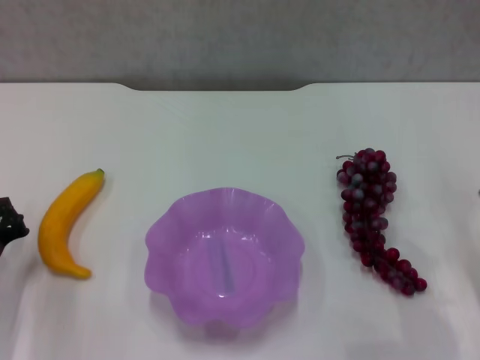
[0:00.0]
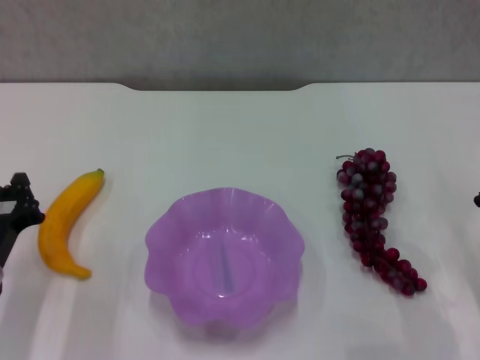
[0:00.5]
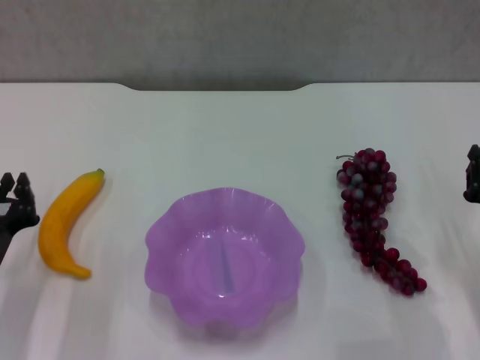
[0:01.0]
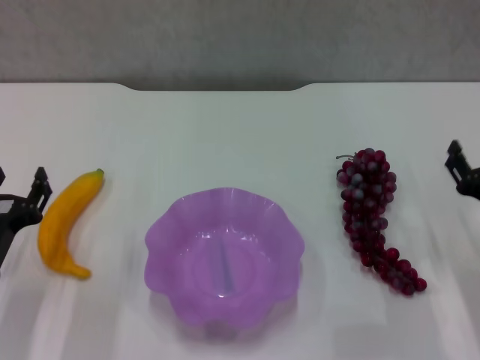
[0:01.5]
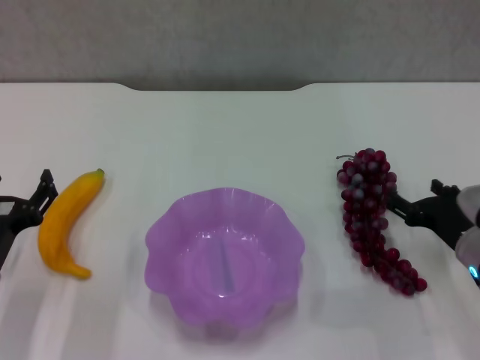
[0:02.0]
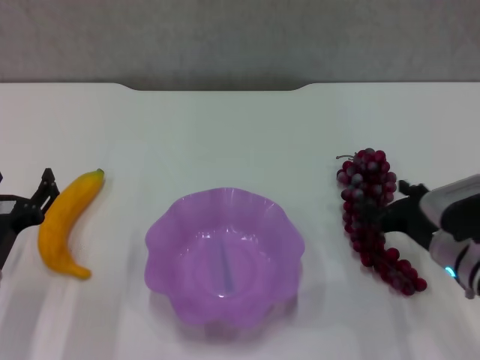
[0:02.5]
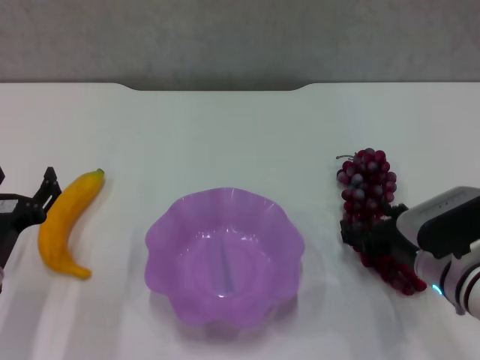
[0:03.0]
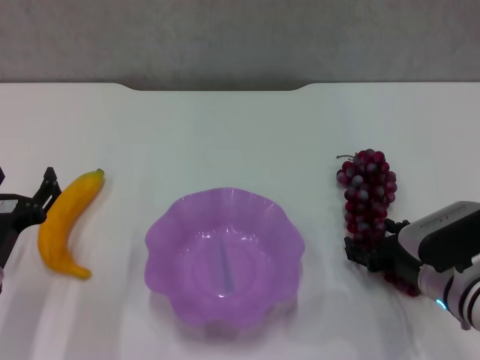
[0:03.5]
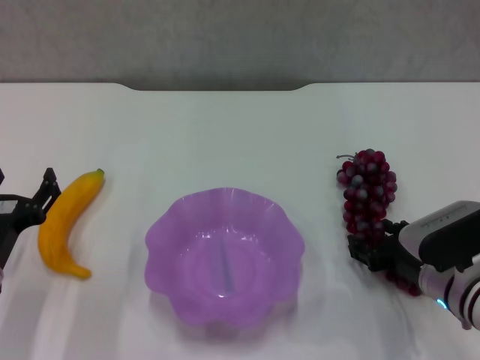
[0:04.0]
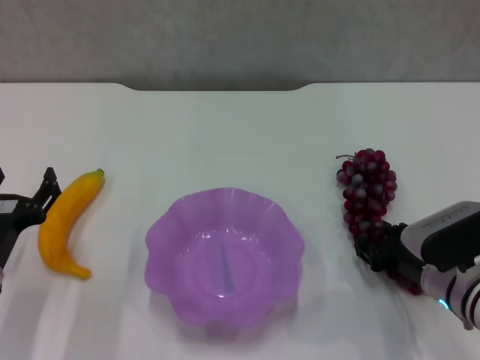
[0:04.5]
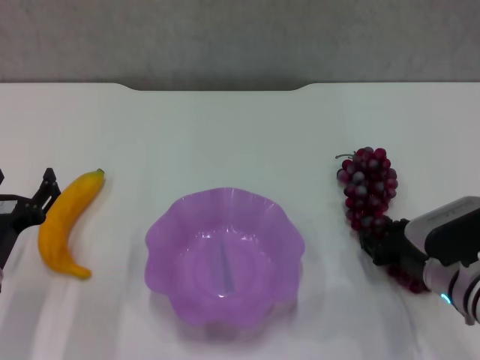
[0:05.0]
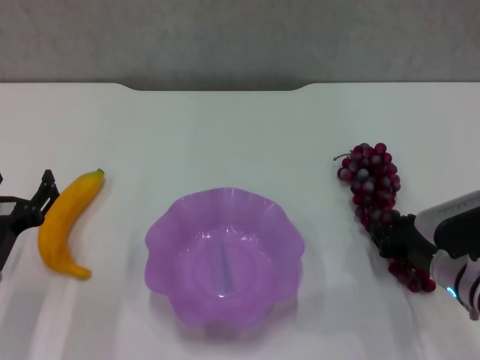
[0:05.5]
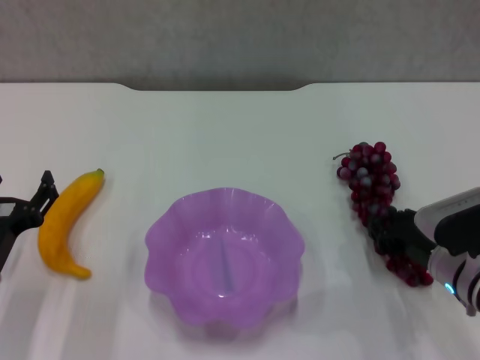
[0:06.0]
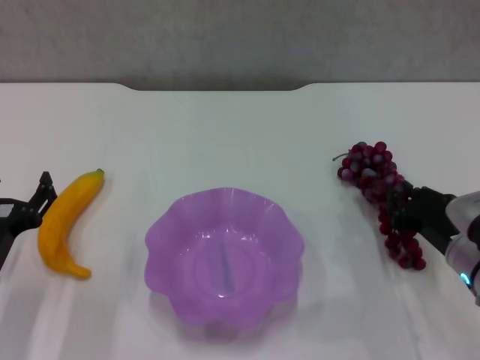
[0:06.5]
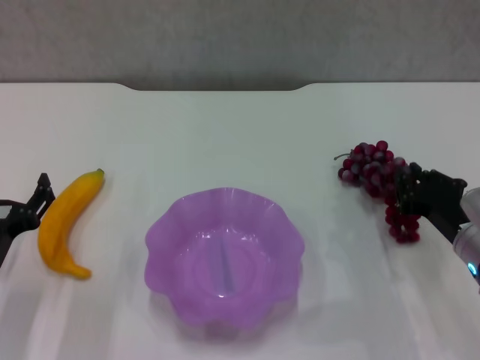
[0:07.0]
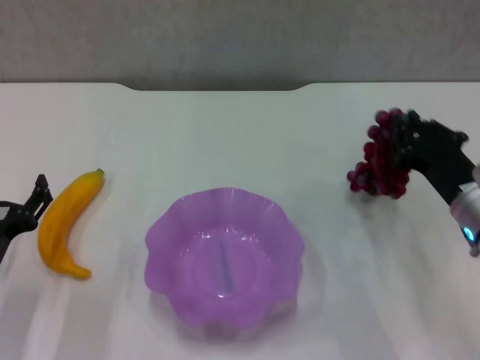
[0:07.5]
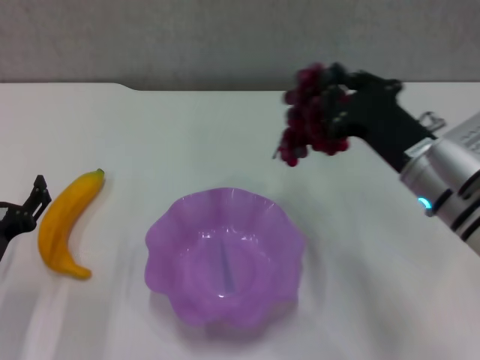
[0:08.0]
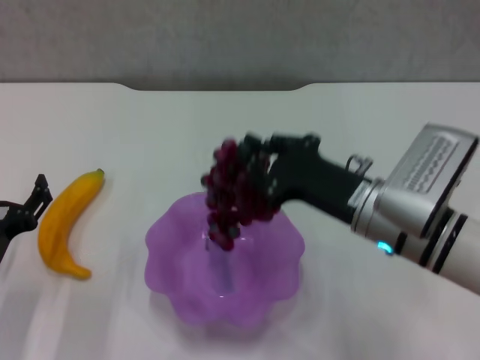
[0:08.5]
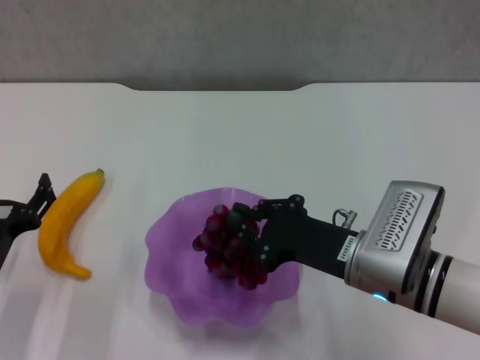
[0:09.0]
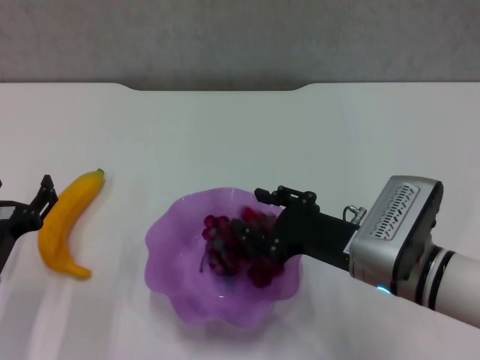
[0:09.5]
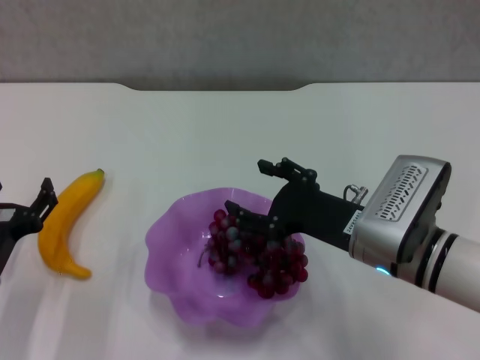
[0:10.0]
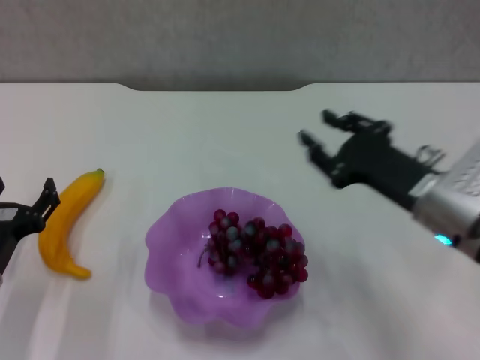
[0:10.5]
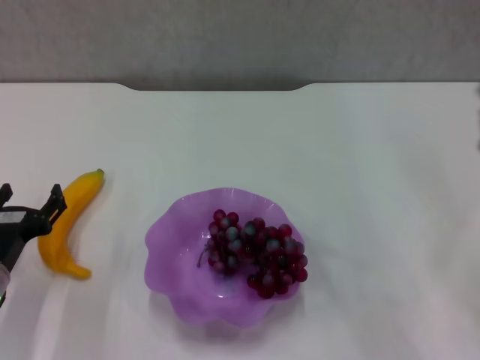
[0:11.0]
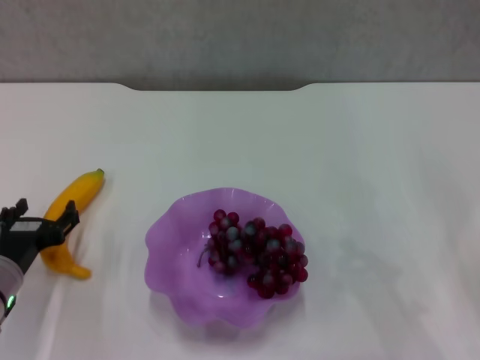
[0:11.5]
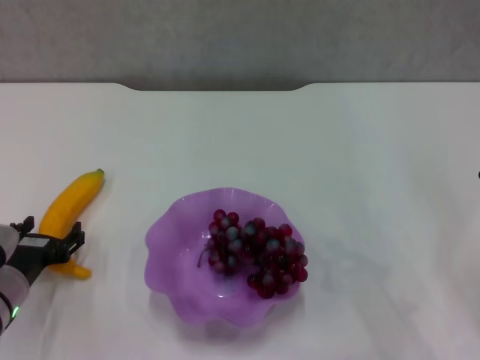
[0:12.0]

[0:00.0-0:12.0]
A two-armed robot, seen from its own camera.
Step, 0:00.0 to 0:05.5: Grasp the grape with right gripper.
Step, 0:06.0 to 0:09.5: Place the grape in the purple plate with right gripper.
0:00.0 to 0:02.0: The left gripper opens its fingers. The right gripper ends up approximately 5 cm from where it was, and opens up.
0:02.0 to 0:04.0: There are only small adjustments of the grippers.
0:04.0 to 0:06.0: The right gripper closes up.
0:06.0 to 0:08.0: The right gripper shifts some 10 cm upward and to the left.
0:08.0 to 0:10.0: The right gripper moves some 5 cm, and opens.
0:10.0 to 0:12.0: The right gripper moves to the right, some 15 cm, and closes up.

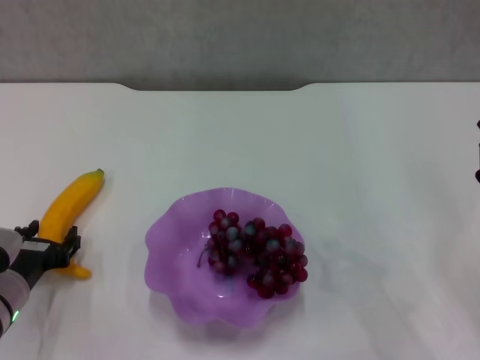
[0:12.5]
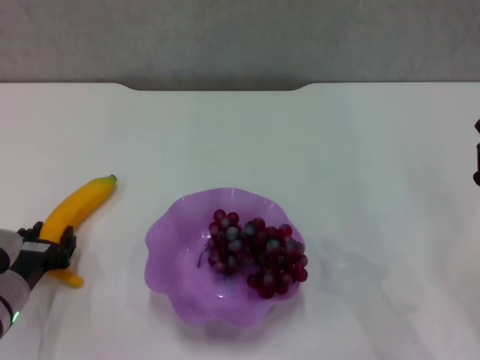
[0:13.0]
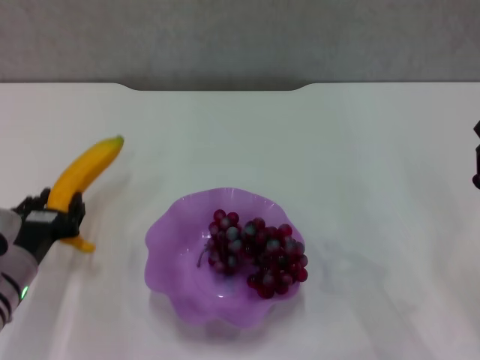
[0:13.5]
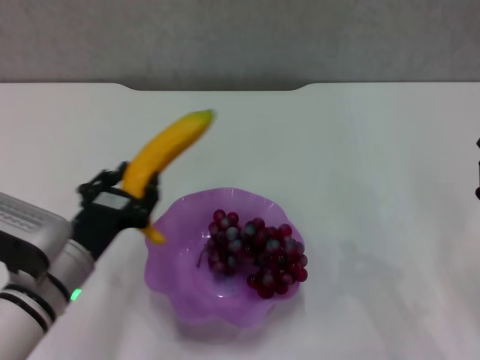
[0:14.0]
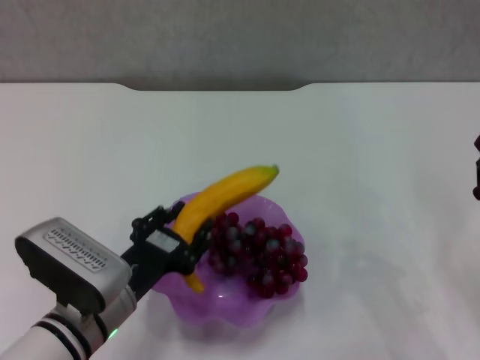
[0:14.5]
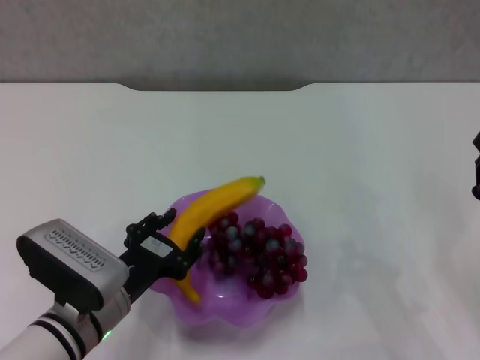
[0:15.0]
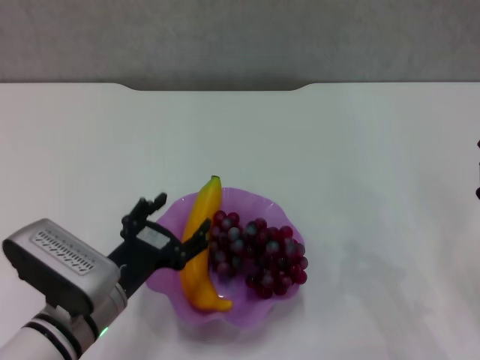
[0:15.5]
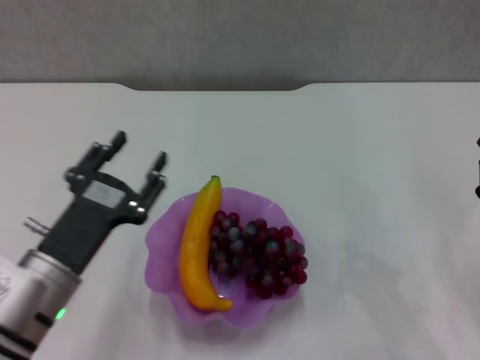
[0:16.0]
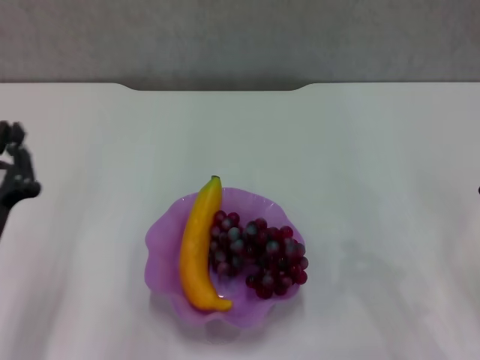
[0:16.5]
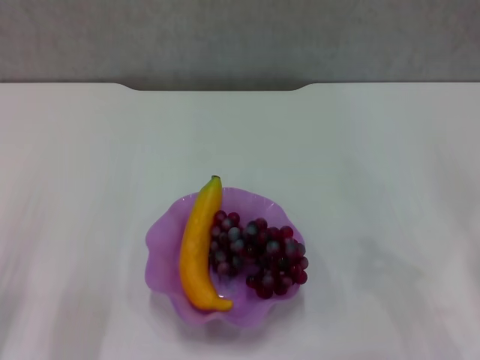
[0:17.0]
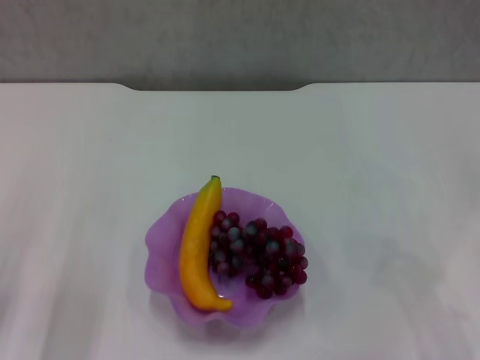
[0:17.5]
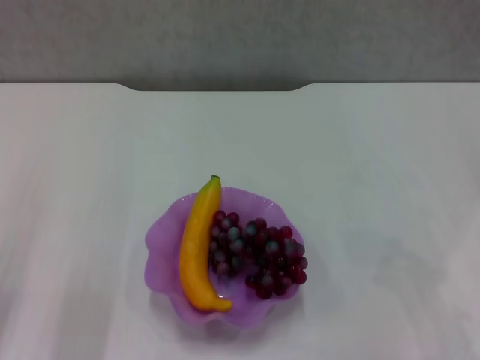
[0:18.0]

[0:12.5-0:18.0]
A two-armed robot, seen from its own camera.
Step, 0:13.5 to 0:15.5: Place the banana in the purple plate with left gripper.
0:12.5 to 0:14.5: The left gripper shifts approximately 10 cm to the right, and closes up.
0:14.5 to 0:16.0: The left gripper shifts by approximately 5 cm.
0:16.0 to 0:18.0: The left gripper heads to the left, covering about 10 cm, and closes its fingers.
